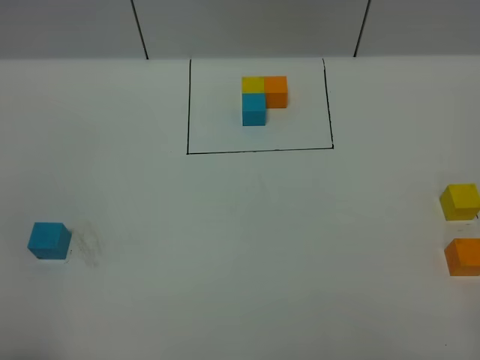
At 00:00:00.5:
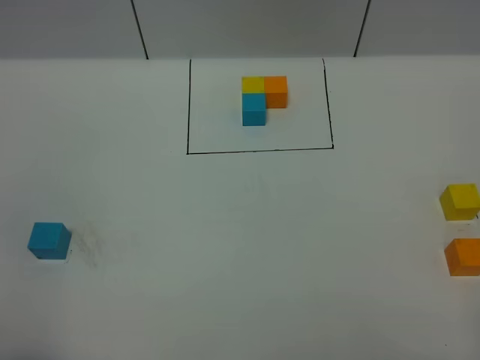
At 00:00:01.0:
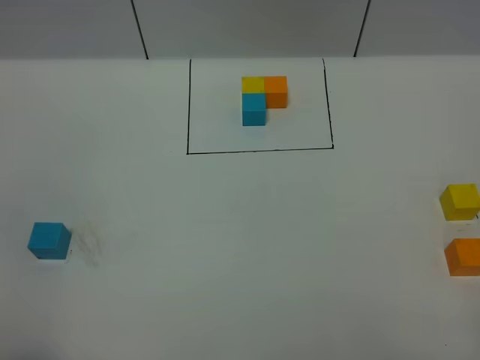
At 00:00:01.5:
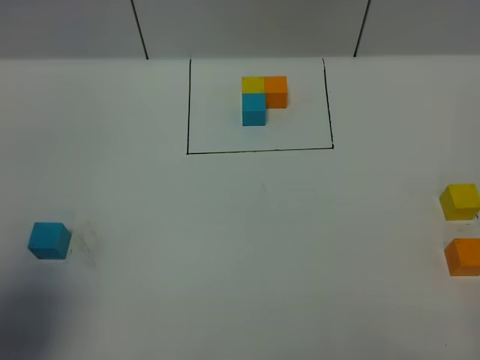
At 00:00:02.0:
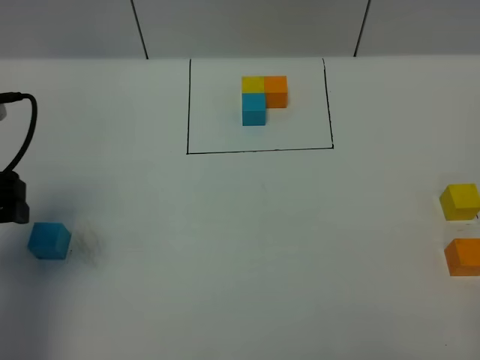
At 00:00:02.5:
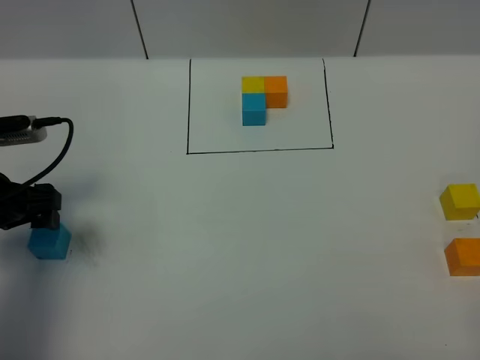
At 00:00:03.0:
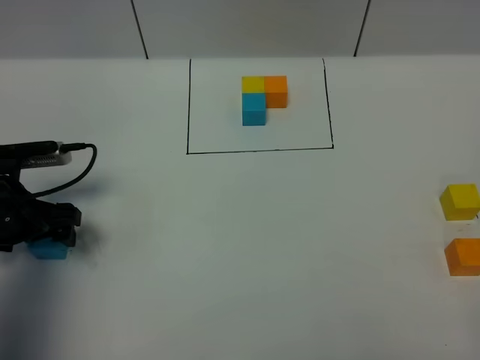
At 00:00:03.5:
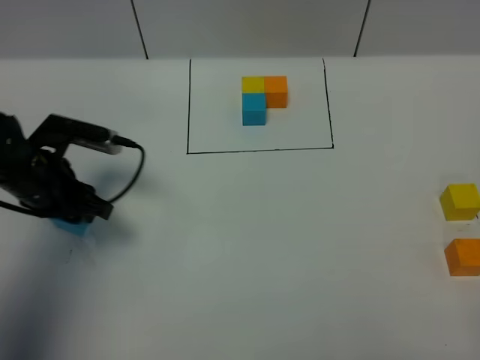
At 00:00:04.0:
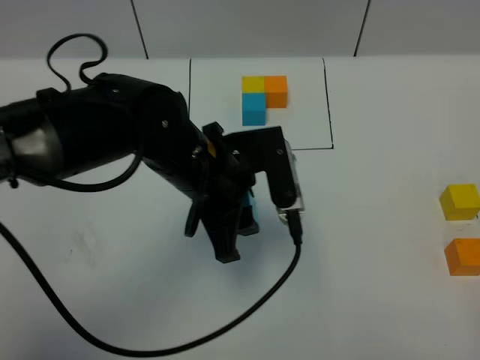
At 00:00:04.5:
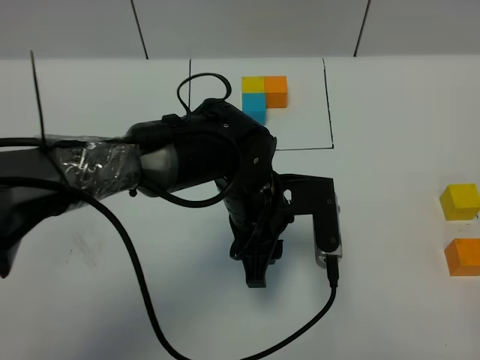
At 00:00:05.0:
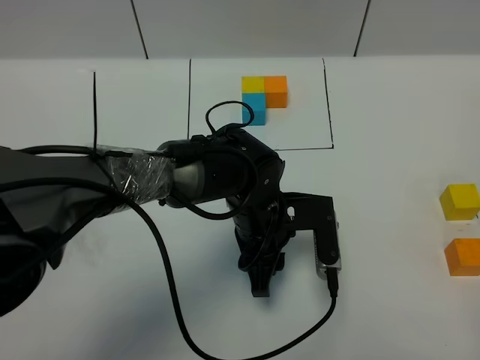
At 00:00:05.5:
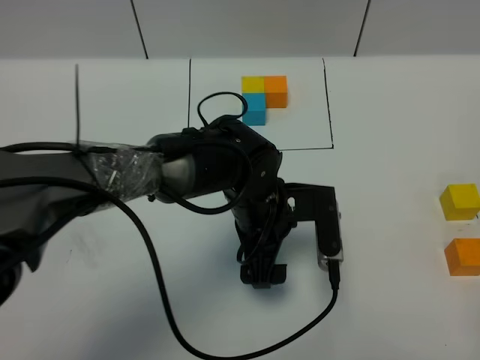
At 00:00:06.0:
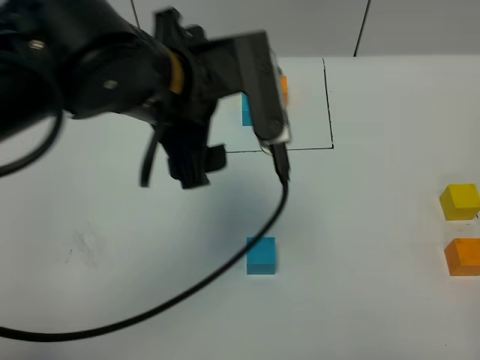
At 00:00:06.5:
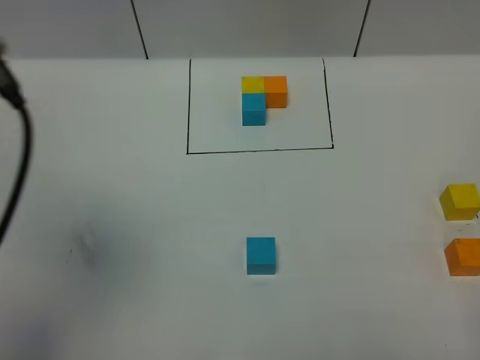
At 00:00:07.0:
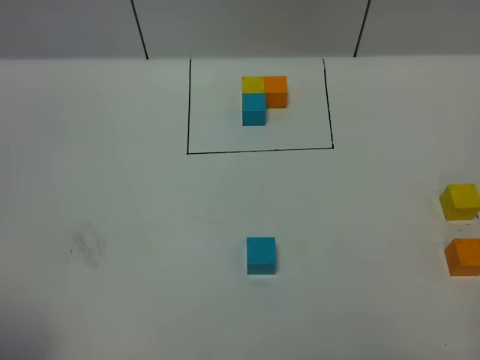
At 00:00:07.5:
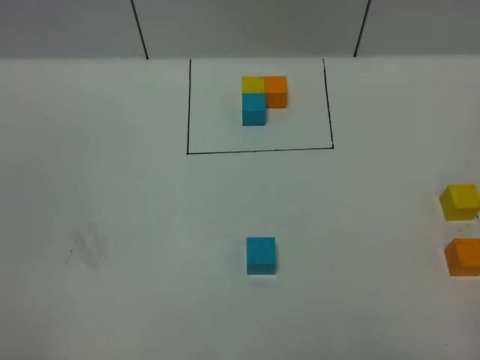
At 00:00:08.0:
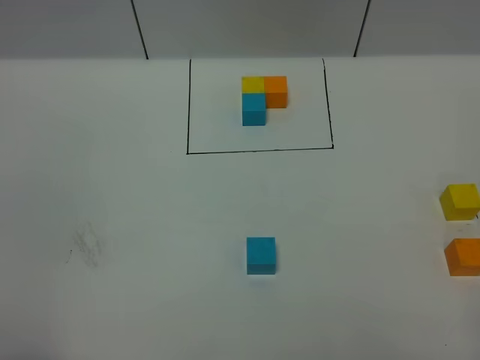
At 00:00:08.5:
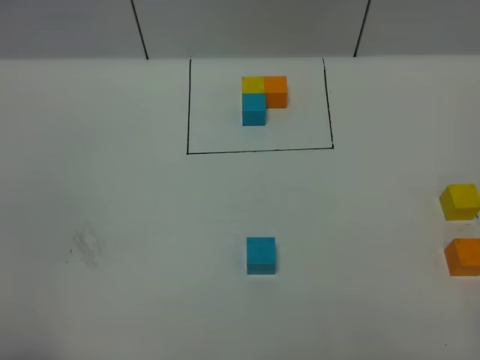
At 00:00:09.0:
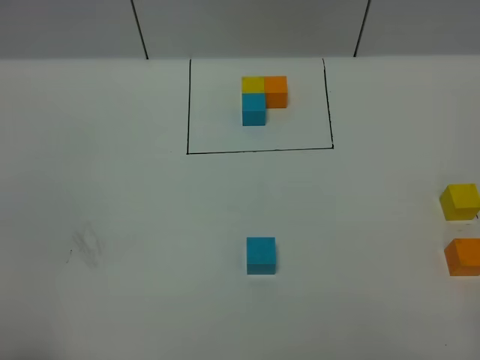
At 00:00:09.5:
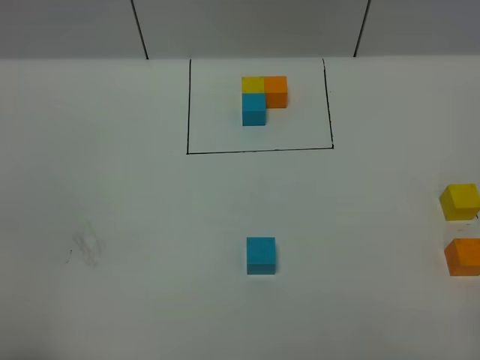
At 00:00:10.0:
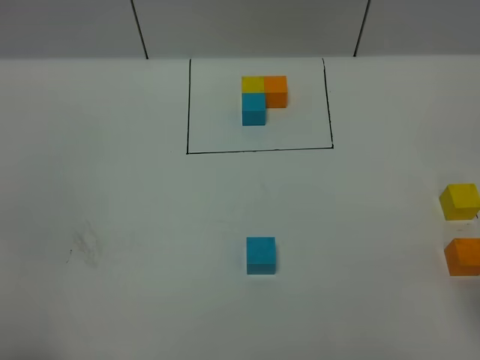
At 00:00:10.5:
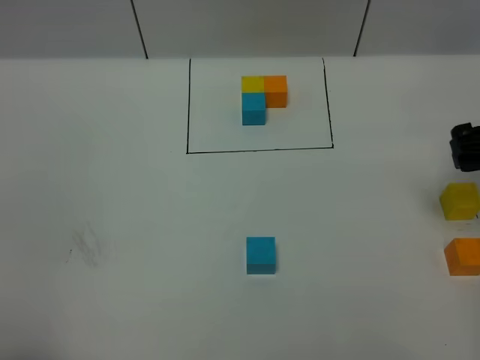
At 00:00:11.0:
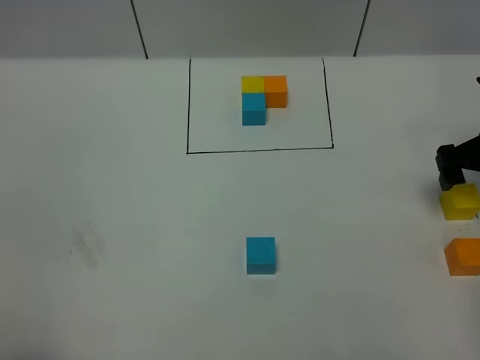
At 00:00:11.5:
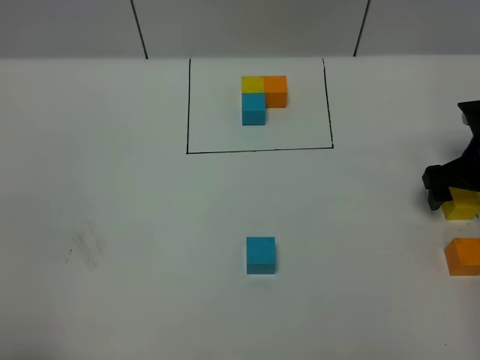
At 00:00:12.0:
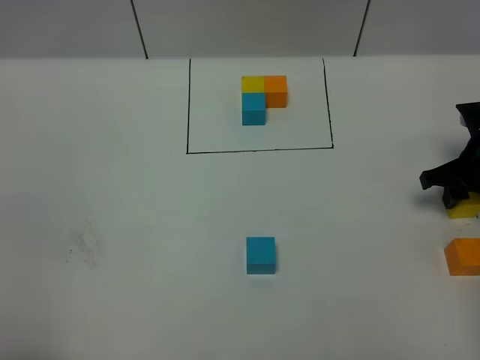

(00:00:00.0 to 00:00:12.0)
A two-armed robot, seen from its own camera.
Task of the whole recording: According to the building block template in front, assemble the scattered blocks together.
Step, 00:00:02.0 - 00:00:05.5: Put the blue cube in the center of the table.
00:00:00.0 - 00:00:02.0: The left gripper is displaced forward by approximately 25 cm.
00:00:02.0 - 00:00:04.0: The left gripper goes roughly 25 cm to the right, and closes up.
00:00:04.0 - 00:00:06.0: The left gripper goes roughly 15 cm upward, and opens its fingers.
00:00:06.0 - 00:00:08.0: The left gripper shifts about 35 cm backward and to the left.
00:00:10.0 - 00:00:12.0: The right gripper shifts about 30 cm forward and downward, and closes its fingers.

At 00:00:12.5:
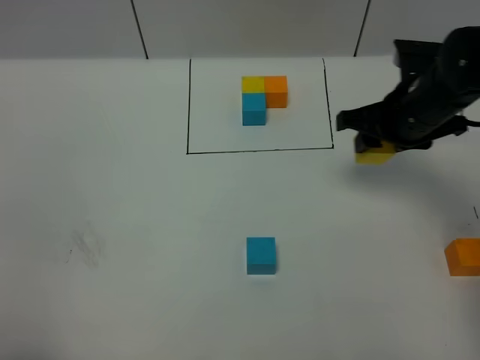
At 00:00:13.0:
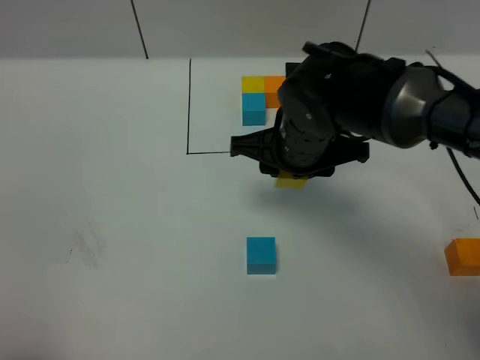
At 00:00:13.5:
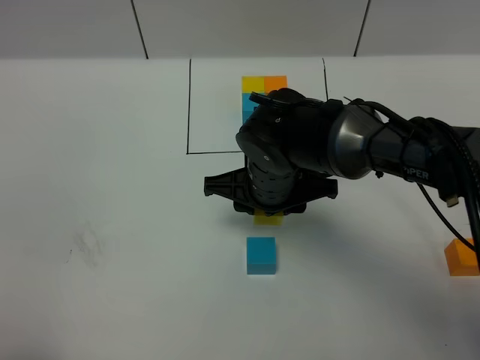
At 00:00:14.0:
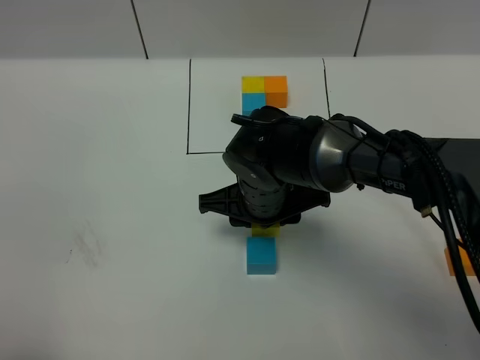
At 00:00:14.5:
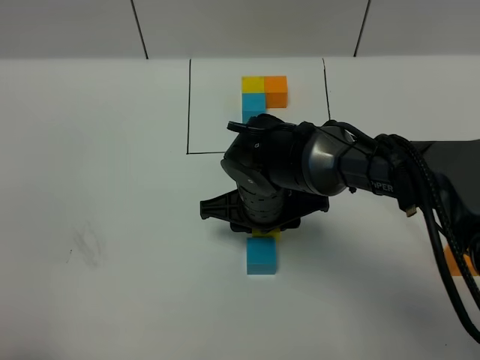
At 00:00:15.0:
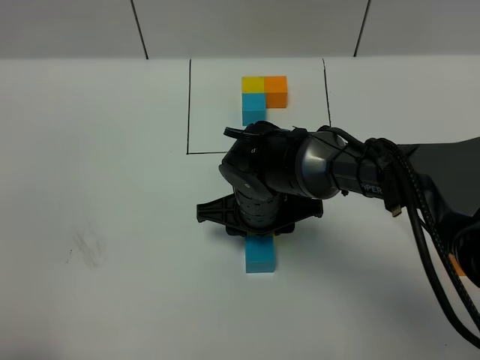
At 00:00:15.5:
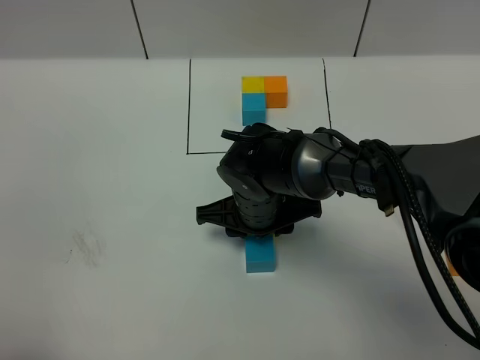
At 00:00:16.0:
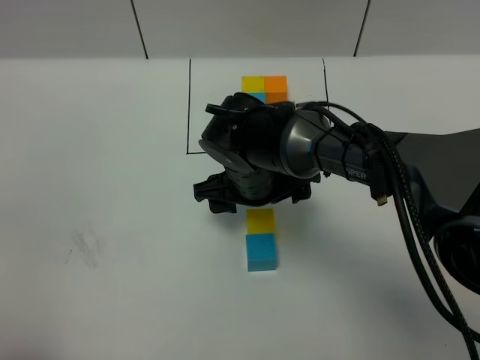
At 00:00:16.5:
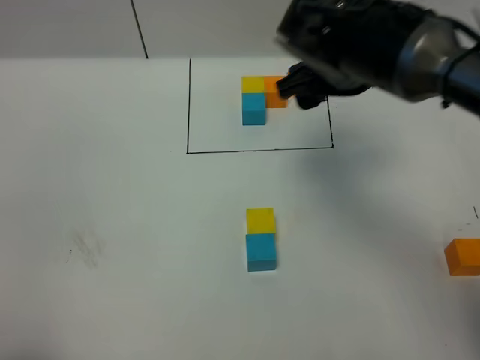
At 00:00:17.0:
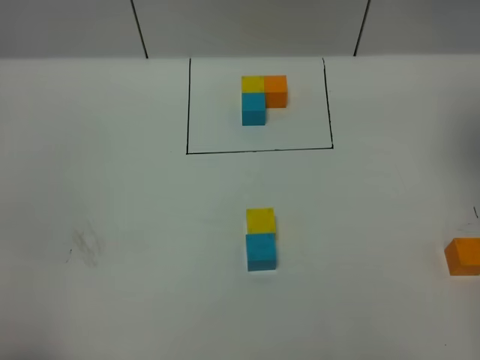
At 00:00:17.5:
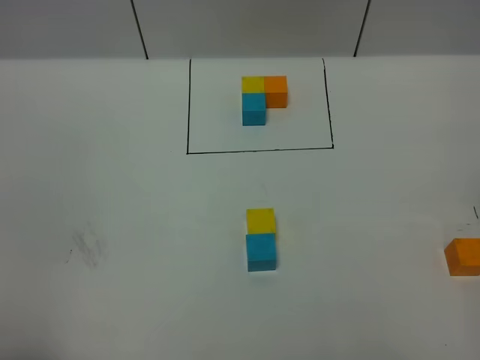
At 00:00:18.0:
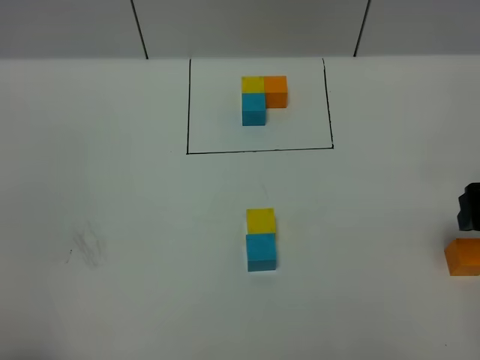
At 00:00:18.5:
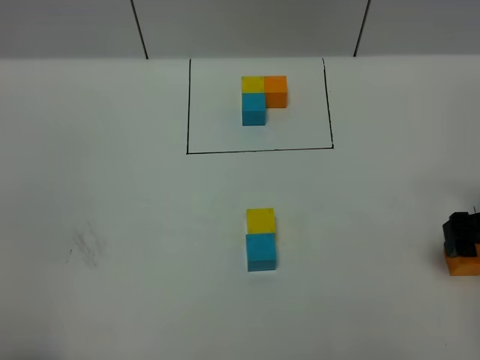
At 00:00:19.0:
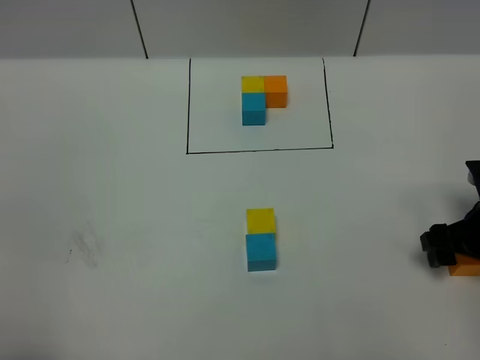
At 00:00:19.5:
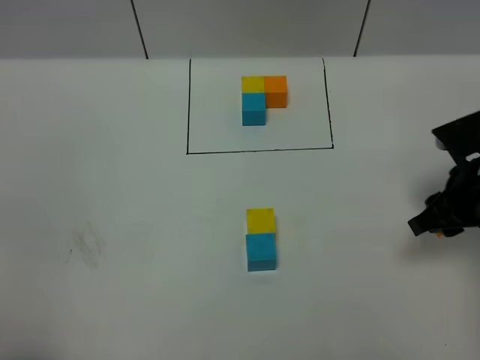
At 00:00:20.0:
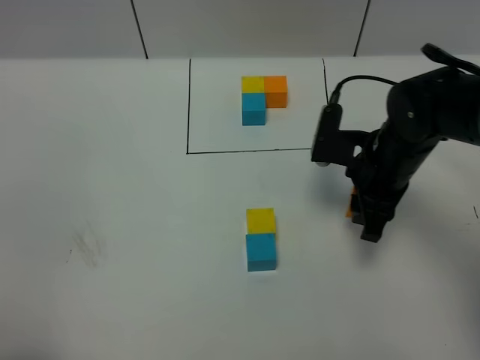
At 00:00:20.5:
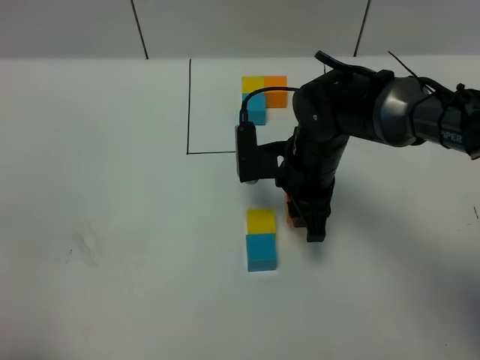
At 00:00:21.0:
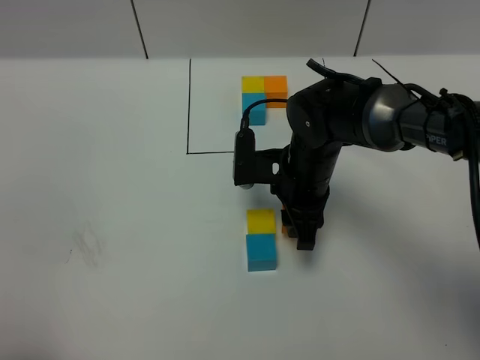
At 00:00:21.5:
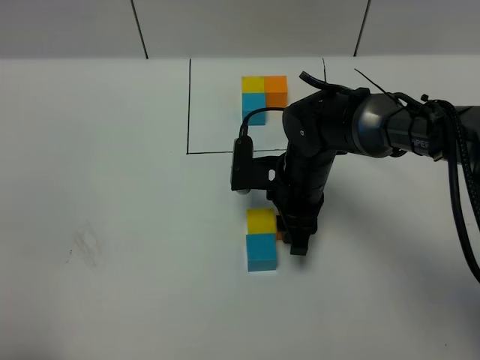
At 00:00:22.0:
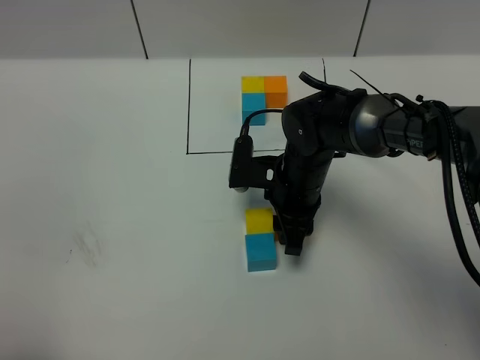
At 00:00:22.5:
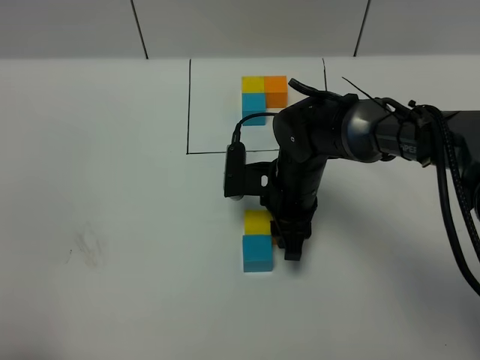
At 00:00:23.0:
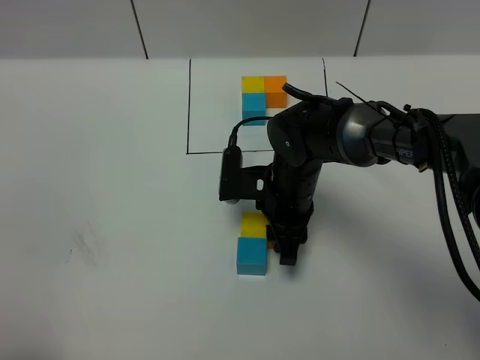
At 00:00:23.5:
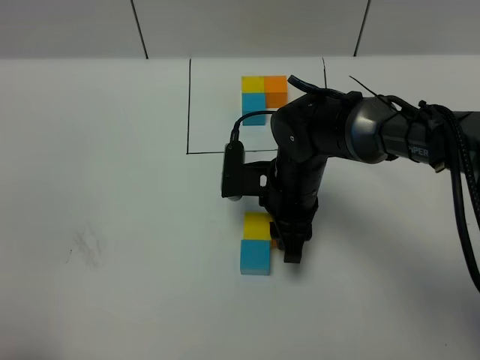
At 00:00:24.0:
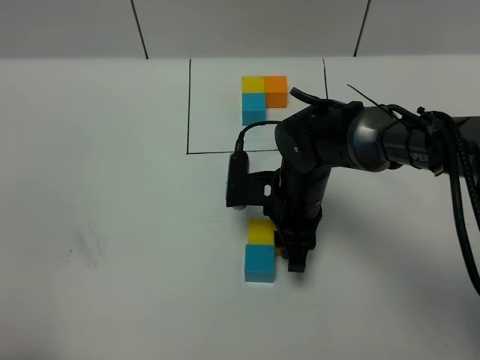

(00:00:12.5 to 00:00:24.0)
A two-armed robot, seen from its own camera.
Task of the whole recording: According to the building block template in front, assemble the scattered blocks together.
Step, 00:00:12.5 - 00:00:16.0: Put the yellow cube on the behind of the blue cube.
00:00:12.5 - 00:00:14.5: The right gripper travels to the left and downward by roughly 20 cm.
00:00:14.5 - 00:00:16.5: The right gripper is displaced upward and to the right by some 20 cm, and opens up.
00:00:16.5 - 00:00:18.5: The right gripper travels to the right, downward and backward by roughly 25 cm.
00:00:18.5 - 00:00:20.0: The right gripper moves to the left and forward, about 15 cm, and closes its fingers.
00:00:20.0 - 00:00:22.0: The right gripper is displaced to the left and downward by some 10 cm.
00:00:22.0 - 00:00:24.0: The grippers move only a little.

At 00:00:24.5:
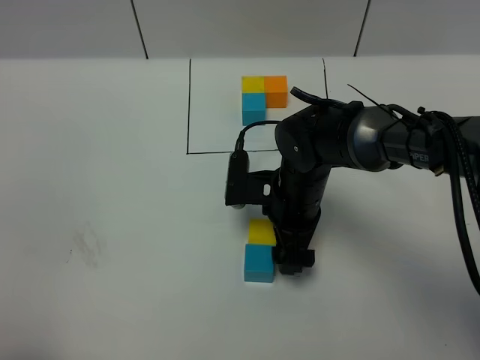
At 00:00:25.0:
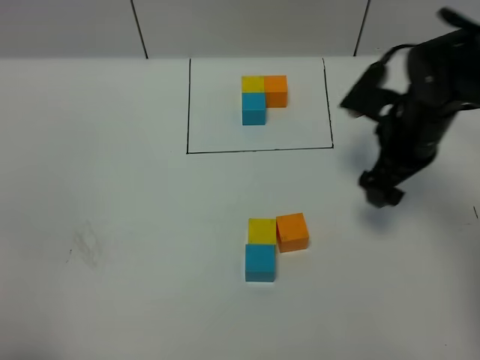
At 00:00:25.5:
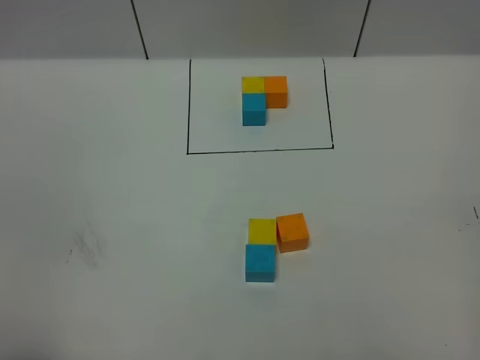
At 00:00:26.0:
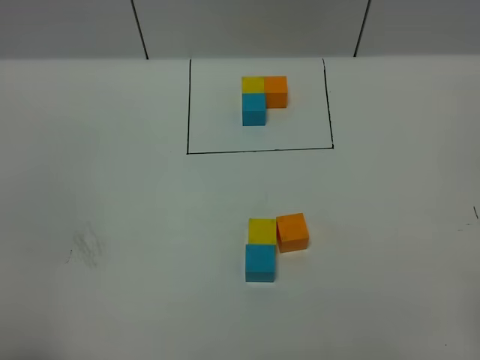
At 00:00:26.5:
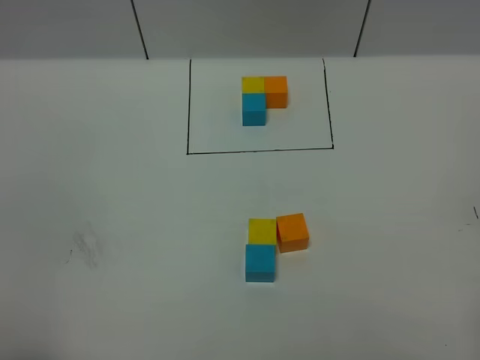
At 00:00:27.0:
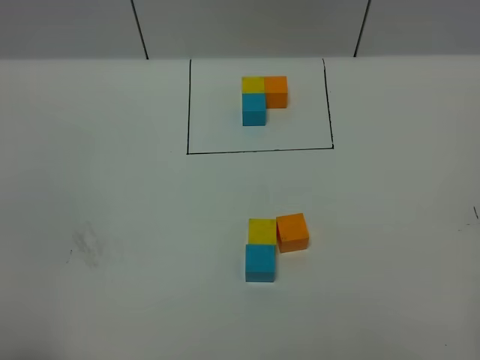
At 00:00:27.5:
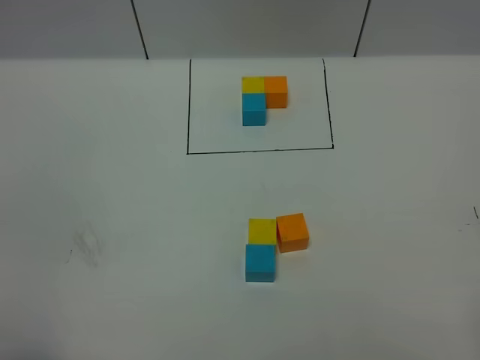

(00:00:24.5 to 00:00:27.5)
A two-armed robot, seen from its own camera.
Task of the whole recording: According to the building block template in front, assemble the scattered blocks together.
00:00:24.5 - 00:00:26.0: The right gripper heads backward, to the right and upward, covering approximately 40 cm.
